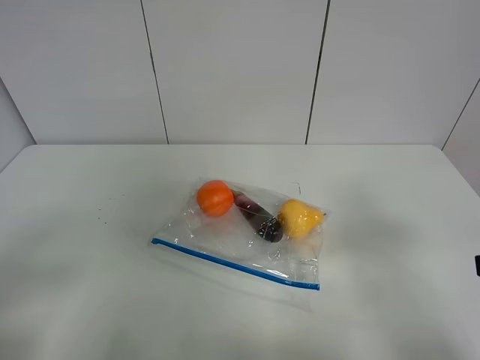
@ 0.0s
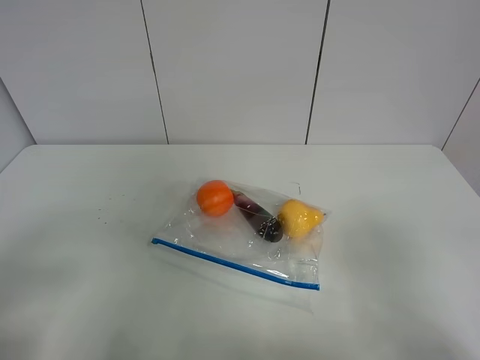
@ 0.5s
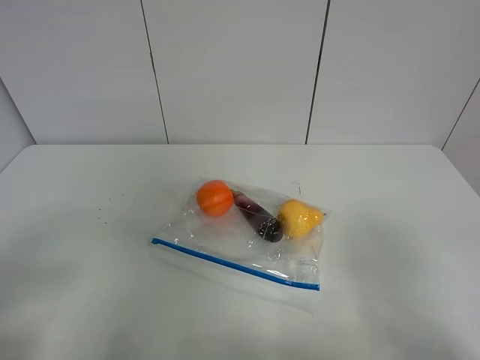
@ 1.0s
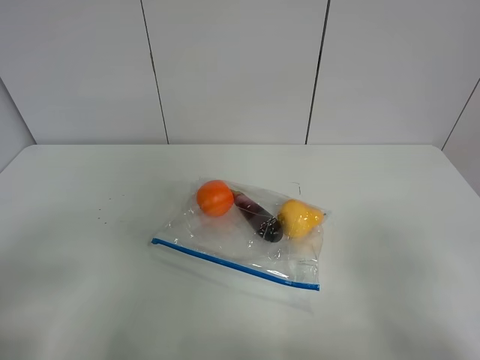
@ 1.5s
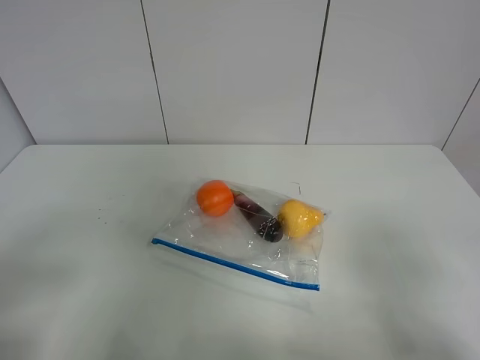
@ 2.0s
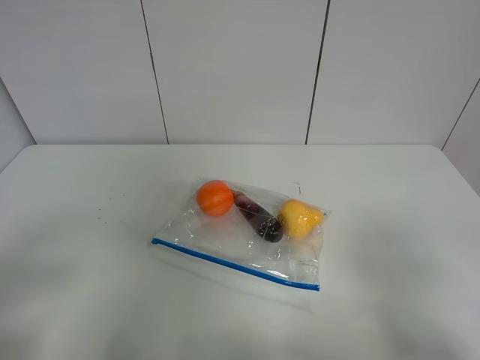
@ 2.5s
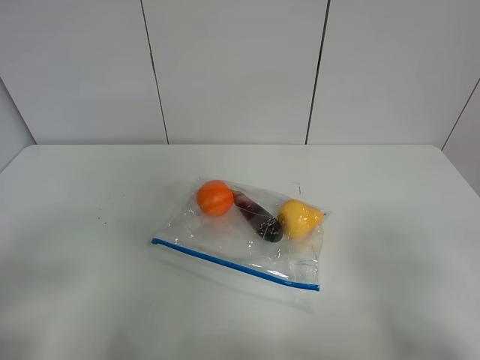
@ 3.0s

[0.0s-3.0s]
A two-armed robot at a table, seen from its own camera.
1.5s to 3.0s: The two grippers keep their place.
